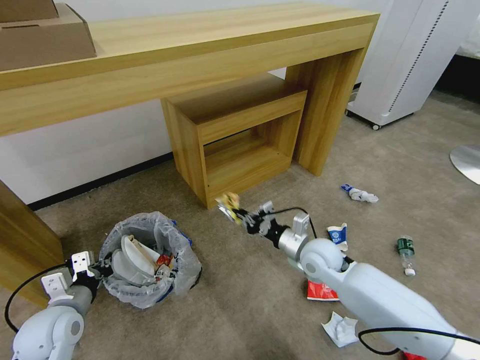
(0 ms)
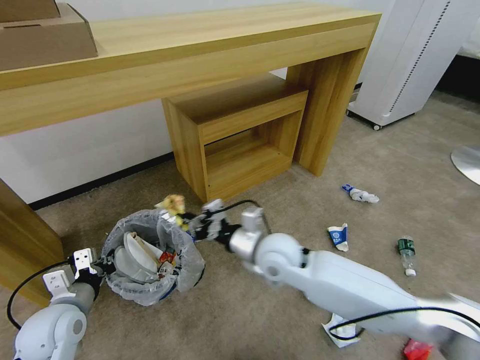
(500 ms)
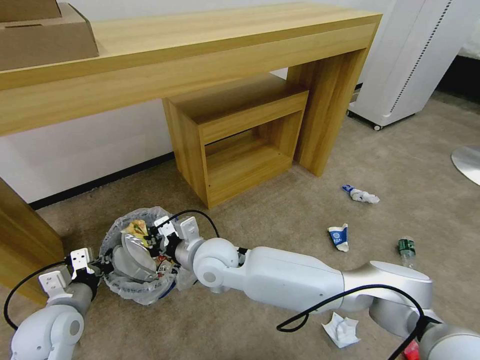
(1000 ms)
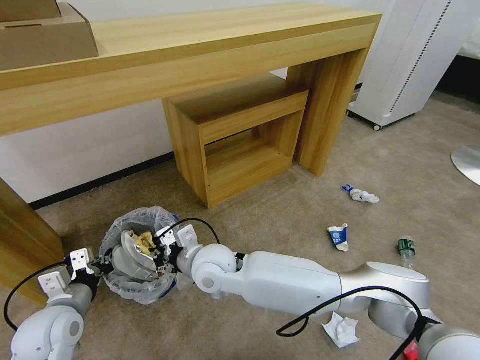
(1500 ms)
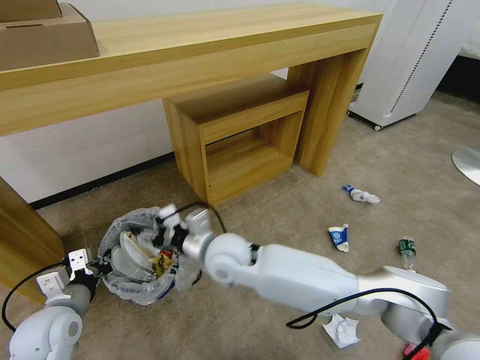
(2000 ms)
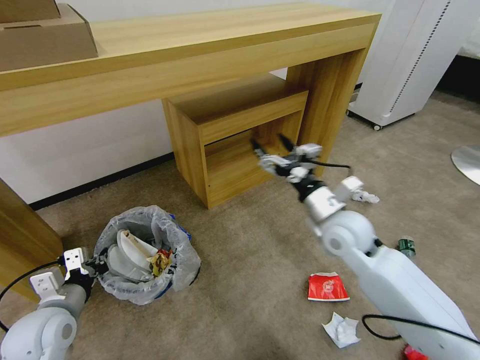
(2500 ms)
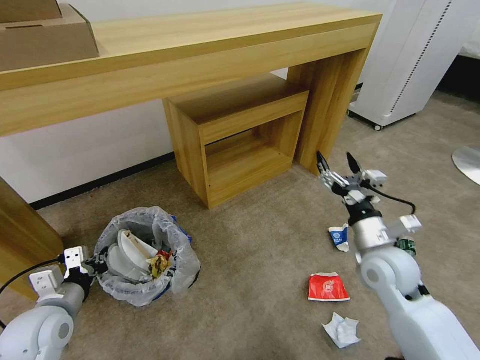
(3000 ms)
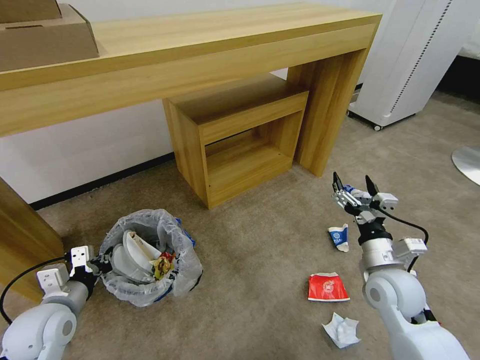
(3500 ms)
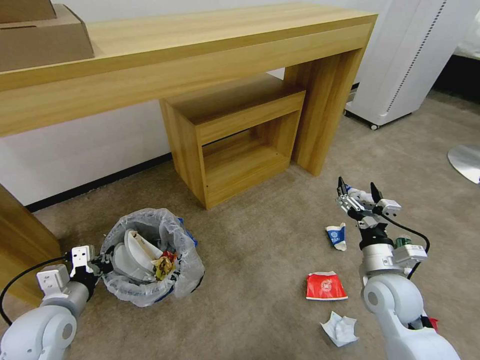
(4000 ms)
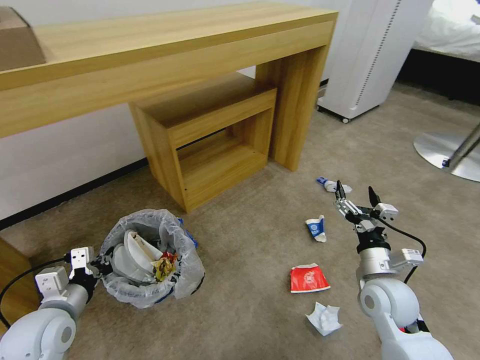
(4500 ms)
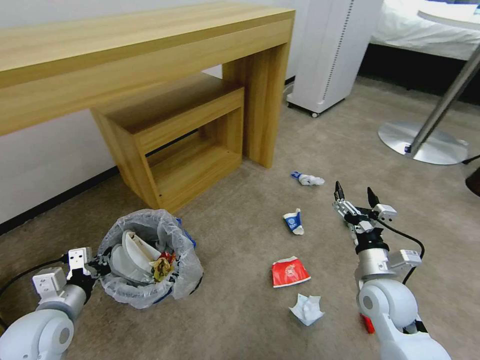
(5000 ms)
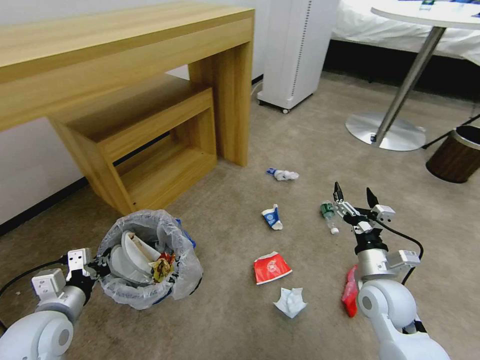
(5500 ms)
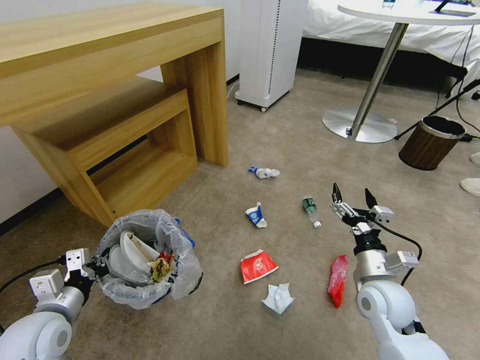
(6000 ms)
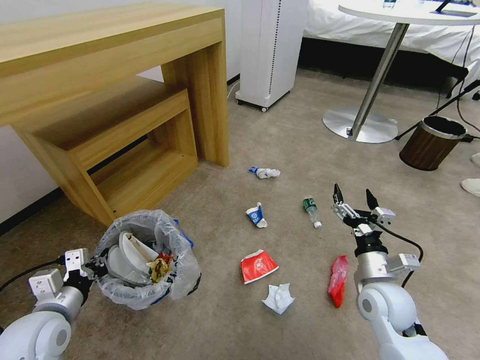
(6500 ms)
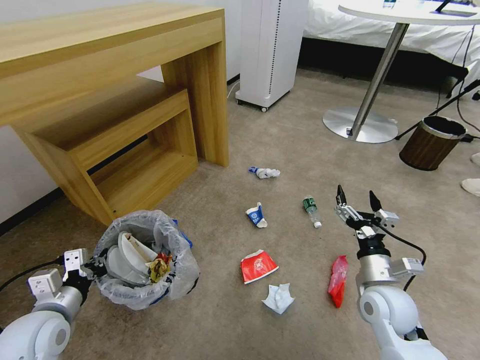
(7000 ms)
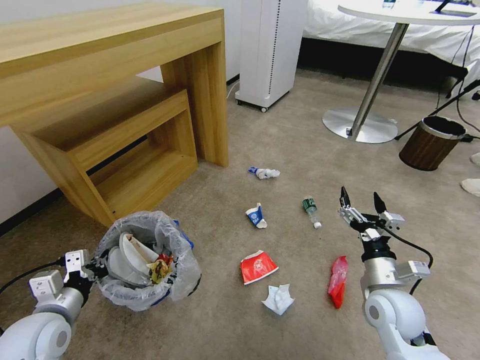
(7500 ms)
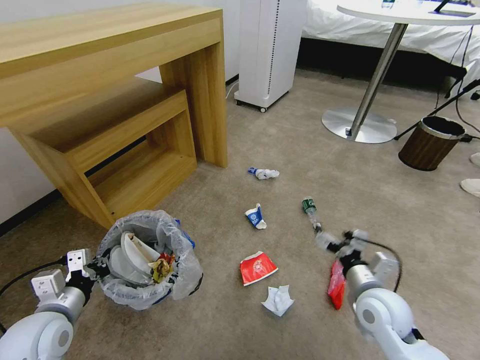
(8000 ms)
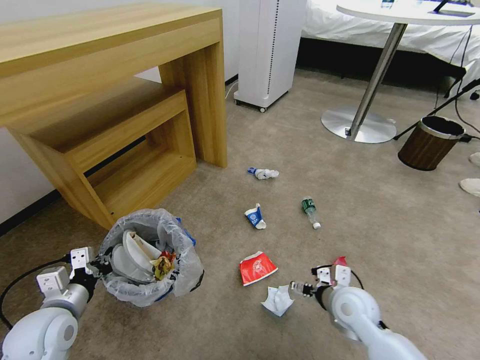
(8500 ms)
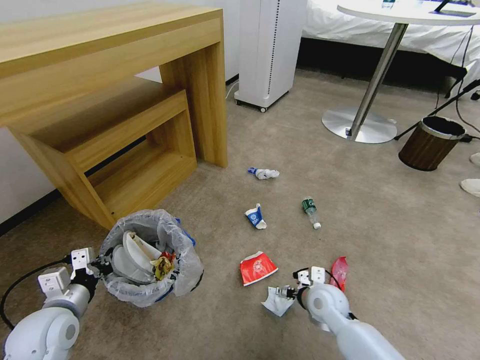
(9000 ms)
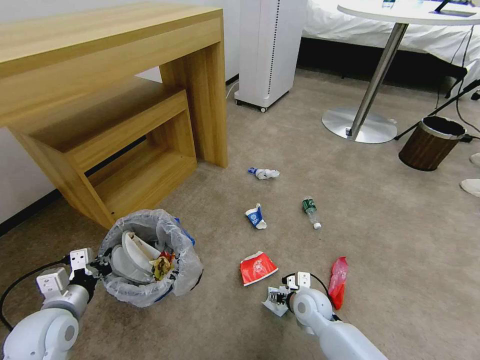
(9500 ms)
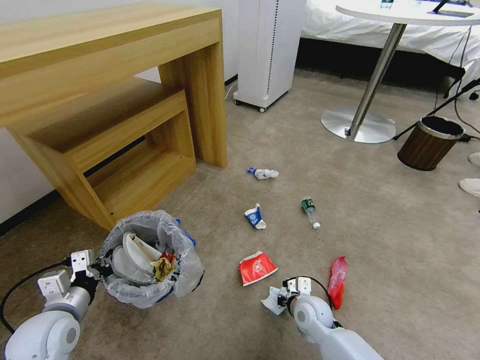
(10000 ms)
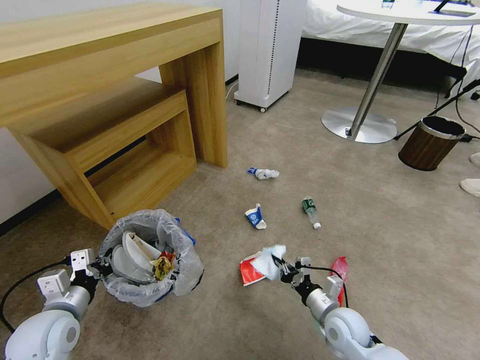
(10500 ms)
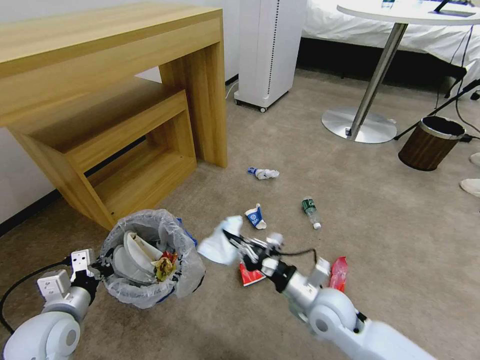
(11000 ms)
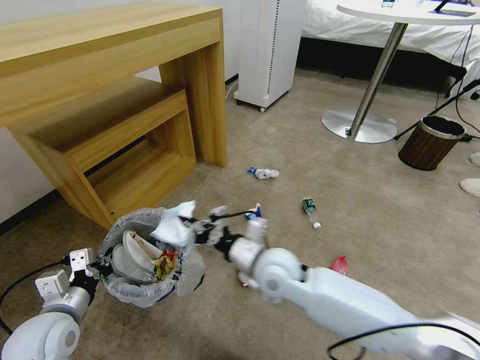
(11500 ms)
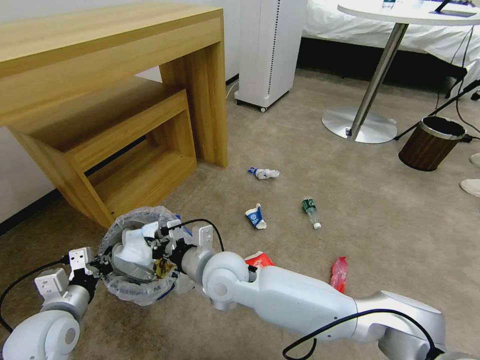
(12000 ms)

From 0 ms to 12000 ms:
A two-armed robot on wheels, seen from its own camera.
Task of the whole recording: Pick up the trash bin and place the garbage on the floor into it.
From 0 ms to 2000 ms: The right gripper travels to the left by about 25 cm, and opens.
From 2000 ms to 4000 ms: The right gripper is displaced to the right by approximately 35 cm.
From 8000 ms to 10000 ms: The right gripper moves downward and to the left, about 20 cm, and closes.
From 10000 ms to 12000 ms: The right gripper is displaced to the left and upward by approximately 30 cm.

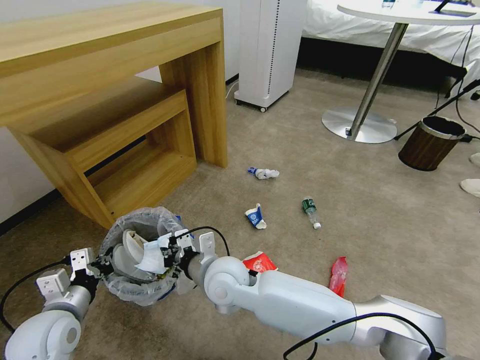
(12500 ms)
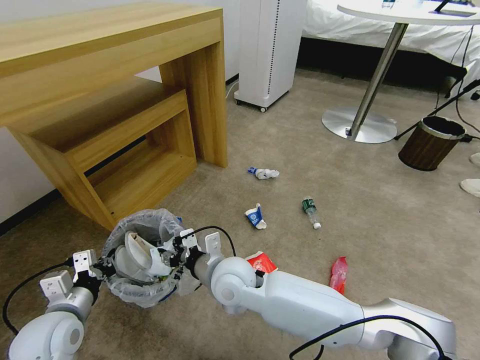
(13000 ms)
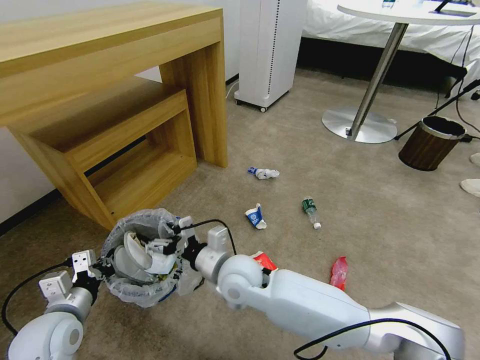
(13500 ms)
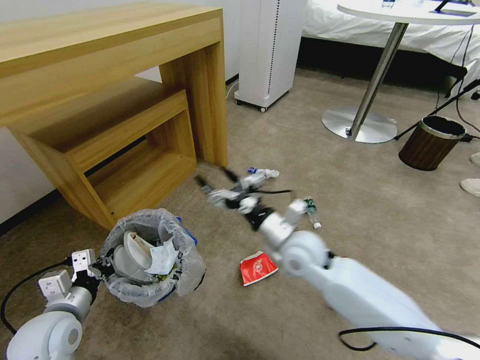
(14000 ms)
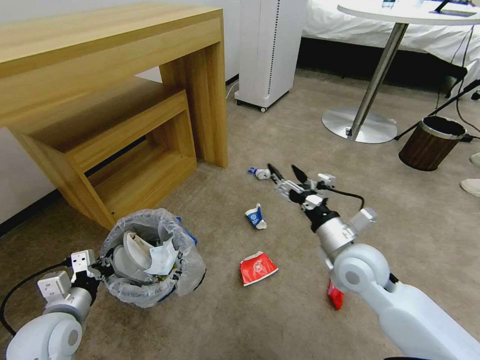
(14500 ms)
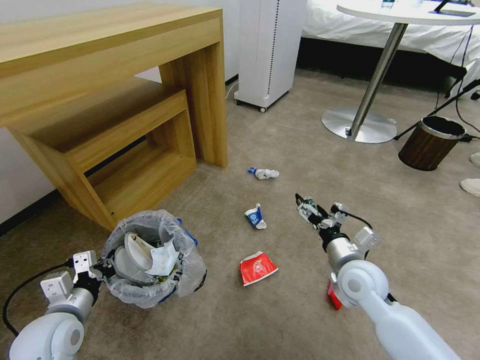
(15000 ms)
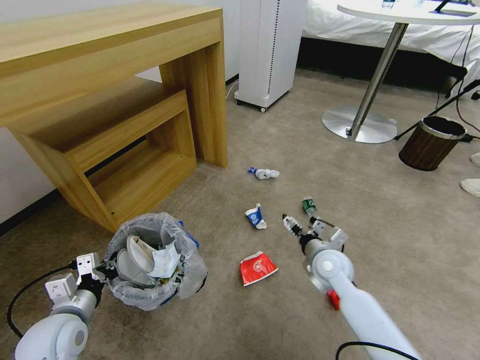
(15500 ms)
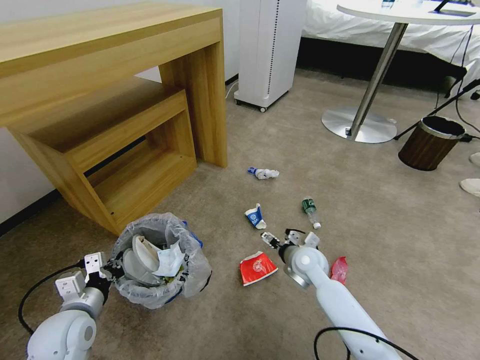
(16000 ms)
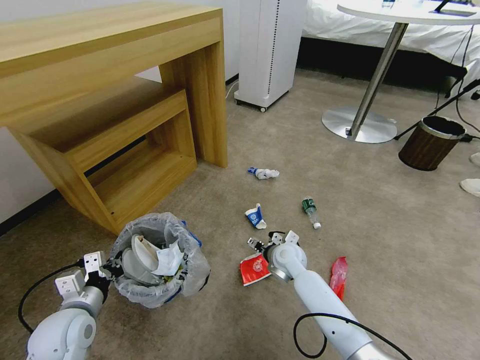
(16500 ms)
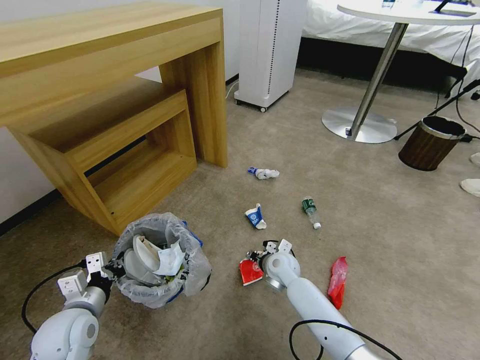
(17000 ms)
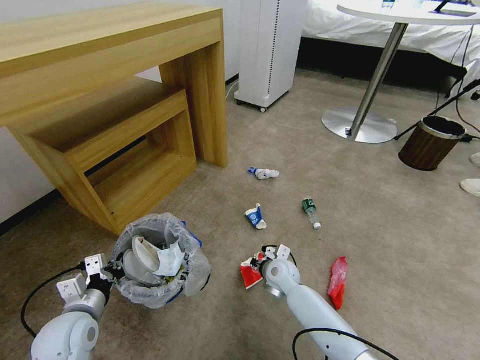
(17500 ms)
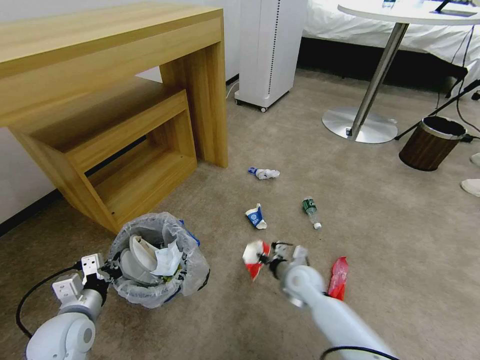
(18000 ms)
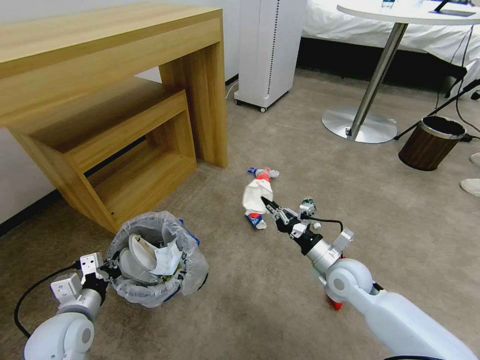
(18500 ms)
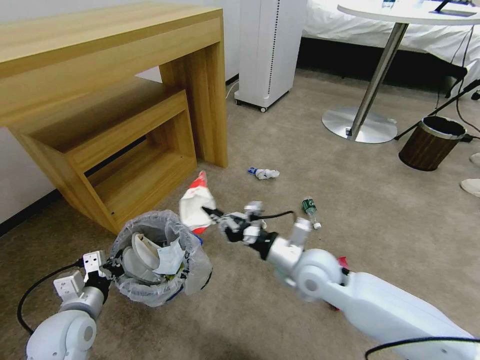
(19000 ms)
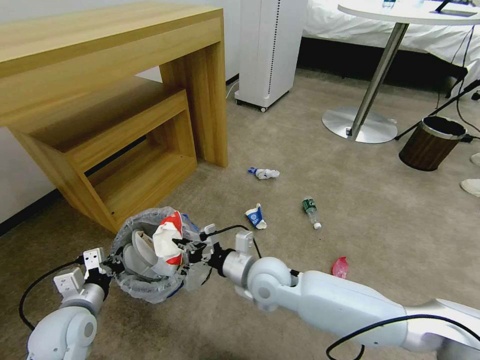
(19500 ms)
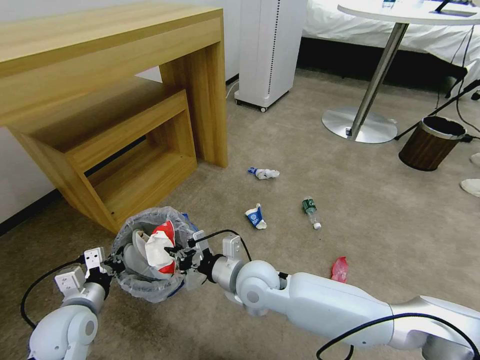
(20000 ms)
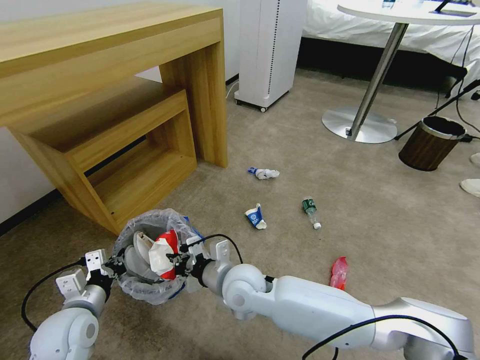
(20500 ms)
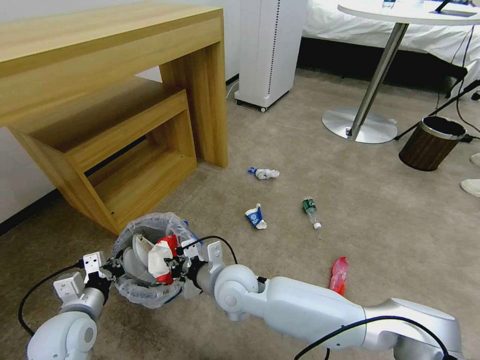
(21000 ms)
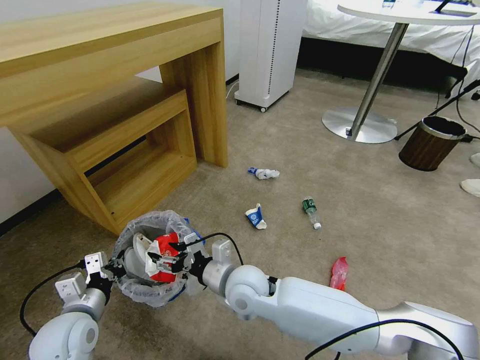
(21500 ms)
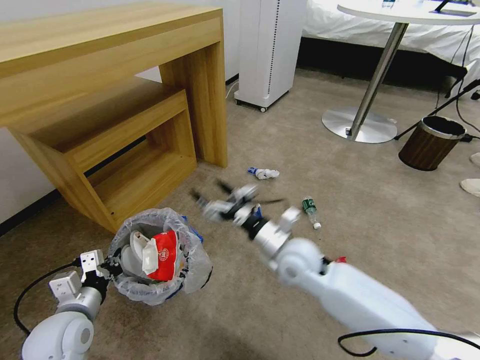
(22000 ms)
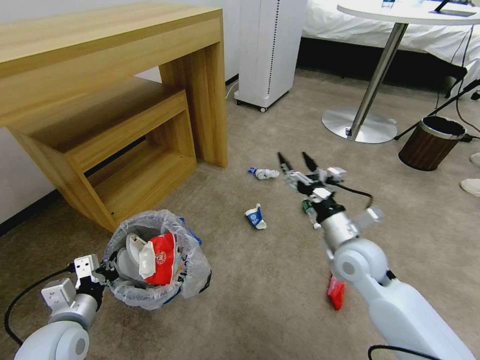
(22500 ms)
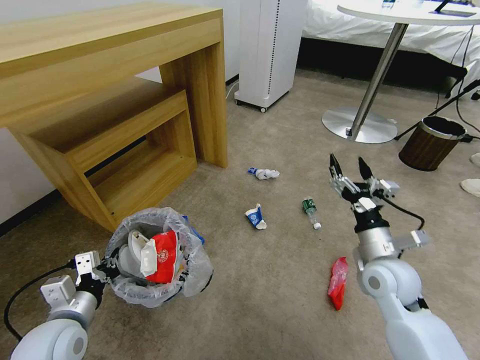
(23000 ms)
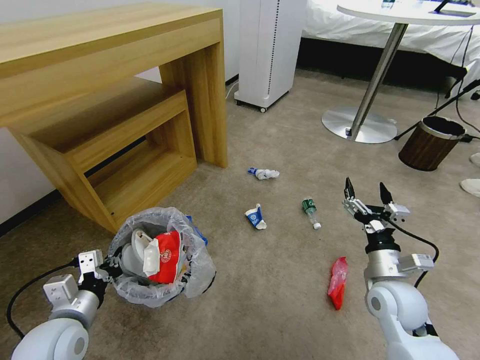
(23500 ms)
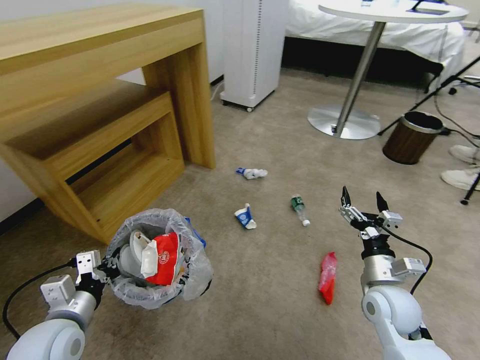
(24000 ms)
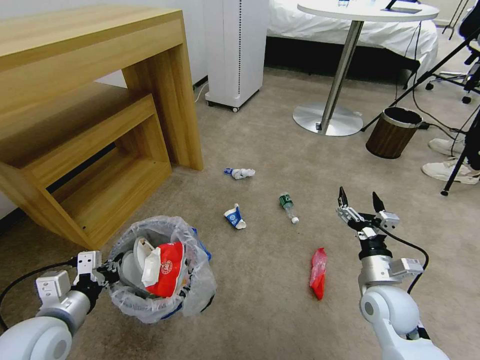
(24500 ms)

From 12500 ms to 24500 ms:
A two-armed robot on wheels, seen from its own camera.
Task of the whole recording: Pick up the trash bin and place the garbage on the floor into it.
From 12500 ms to 14500 ms: The right gripper goes roughly 25 cm to the right, and opens its fingers.
From 14500 ms to 16500 ms: The right gripper moves downward, forward and to the left, roughly 20 cm.
From 16500 ms to 18500 ms: The right gripper goes approximately 15 cm to the right, backward and upward, and closes up.
From 18500 ms to 20500 ms: The right gripper shifts roughly 25 cm to the left.
From 20500 ms to 22500 ms: The right gripper moves to the right, some 25 cm, and opens its fingers.
From 22500 ms to 24500 ms: The right gripper is displaced downward, backward and to the right by approximately 10 cm.

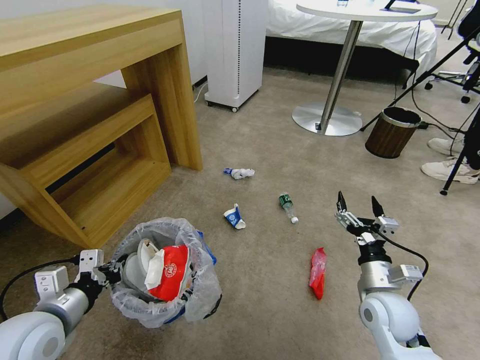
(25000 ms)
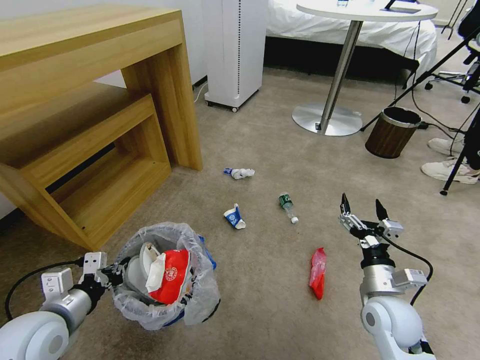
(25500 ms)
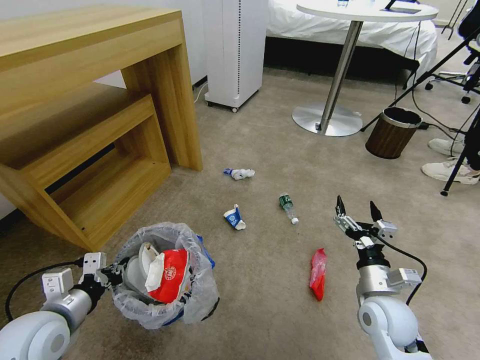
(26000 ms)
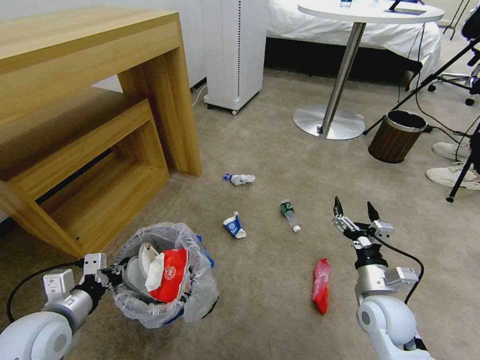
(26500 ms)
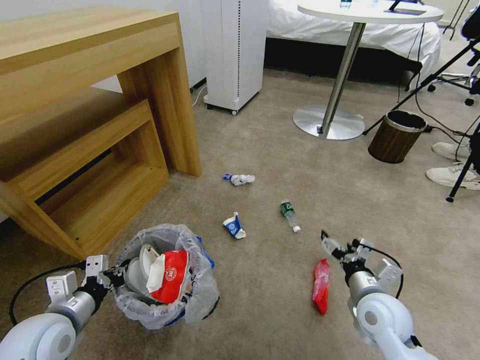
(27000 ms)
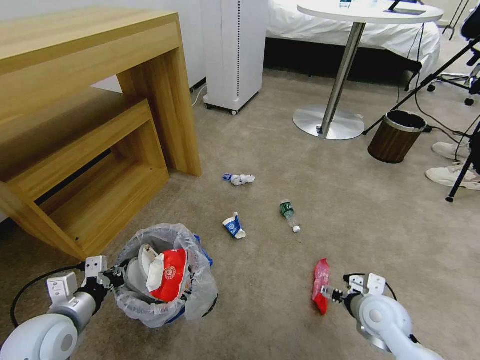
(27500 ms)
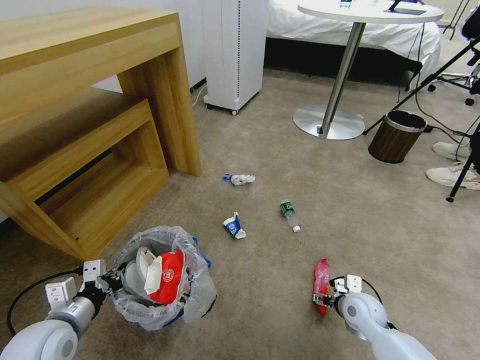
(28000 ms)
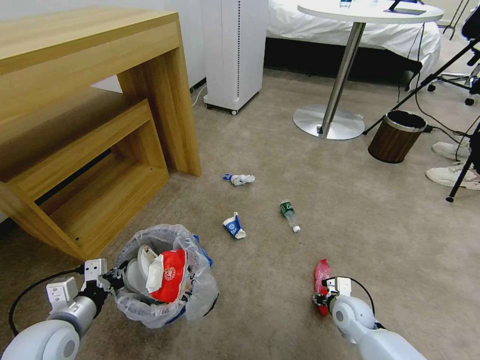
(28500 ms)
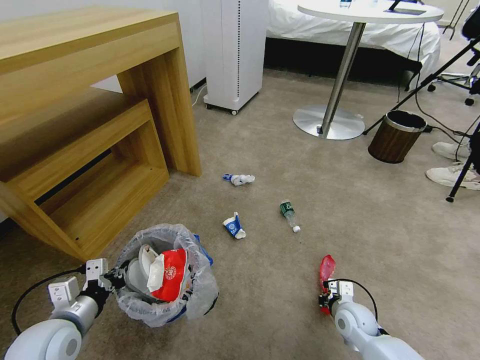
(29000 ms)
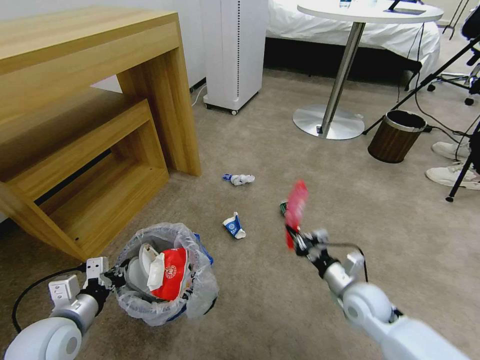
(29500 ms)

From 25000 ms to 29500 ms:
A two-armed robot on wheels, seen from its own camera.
Task of the whole recording: Pick up the trash bin and place the garbage on the floor into it.
From 27000 ms to 29500 ms: The right gripper is displaced downward by some 5 cm, and closes.
